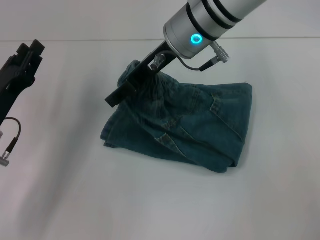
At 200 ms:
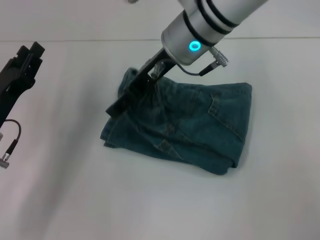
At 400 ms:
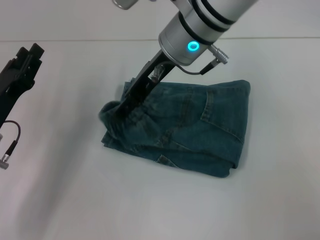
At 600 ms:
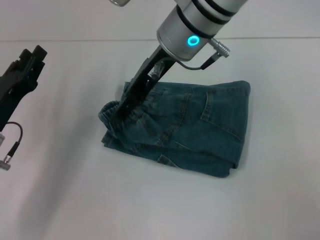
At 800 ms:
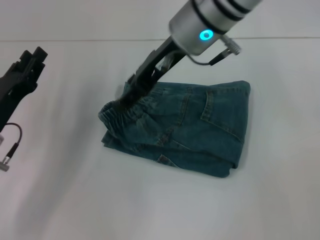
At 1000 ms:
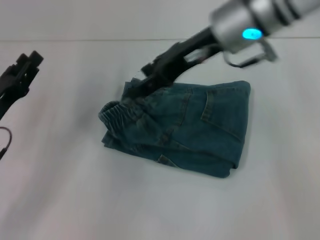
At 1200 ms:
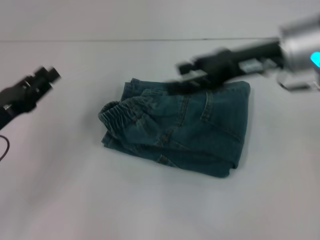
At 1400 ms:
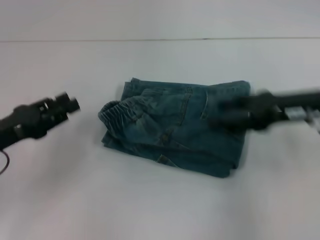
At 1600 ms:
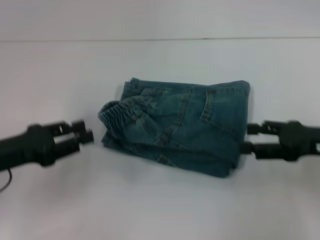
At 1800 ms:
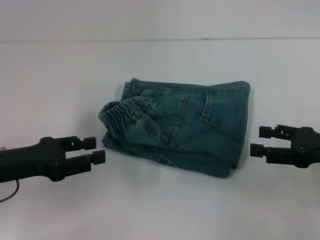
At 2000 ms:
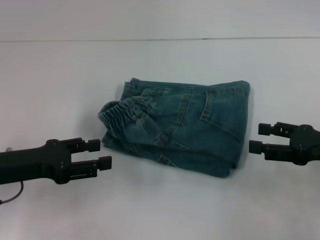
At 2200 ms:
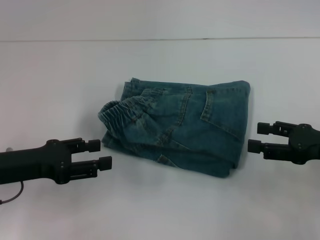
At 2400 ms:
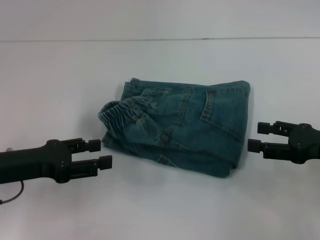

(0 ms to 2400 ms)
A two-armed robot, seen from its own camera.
0 ms - 1200 ms: The right gripper shifts roughly 15 cm to the right, and opens its fingers.
1200 ms - 2400 ms: The right gripper moves to the right, downward and backward, about 20 cm.
